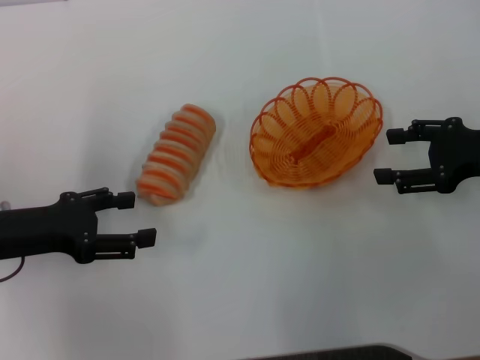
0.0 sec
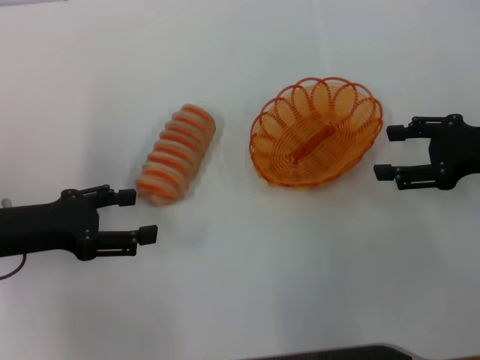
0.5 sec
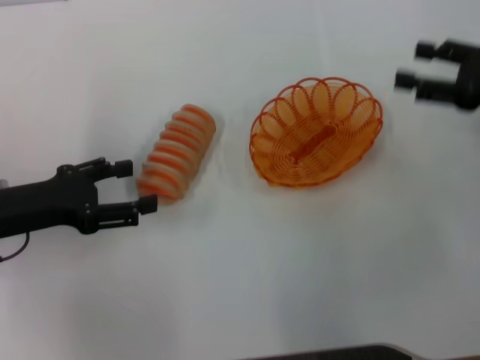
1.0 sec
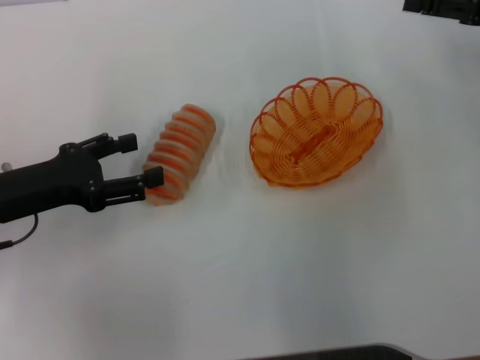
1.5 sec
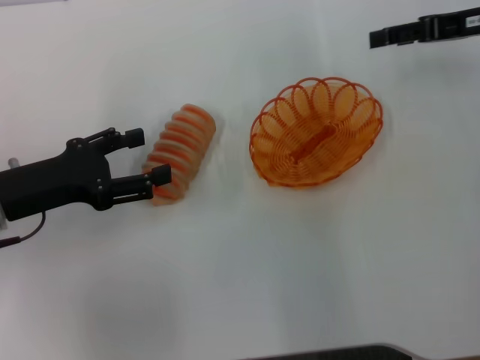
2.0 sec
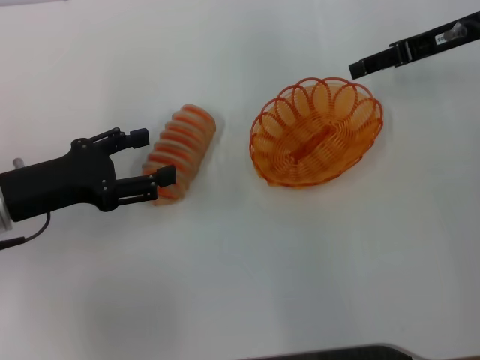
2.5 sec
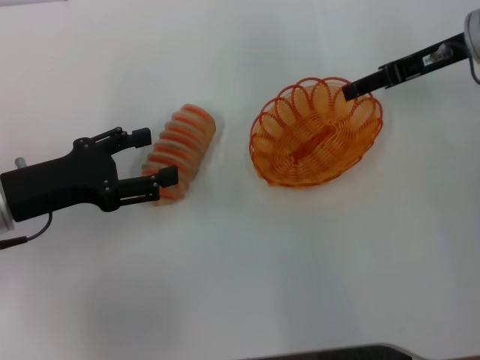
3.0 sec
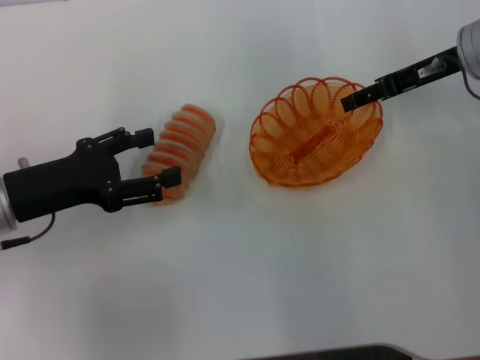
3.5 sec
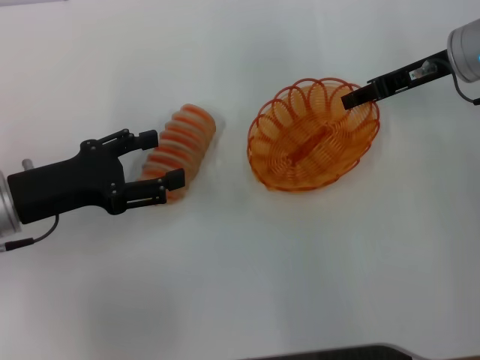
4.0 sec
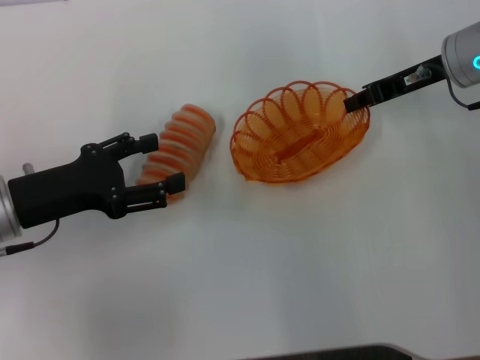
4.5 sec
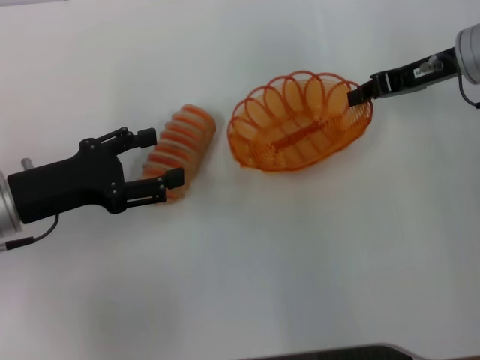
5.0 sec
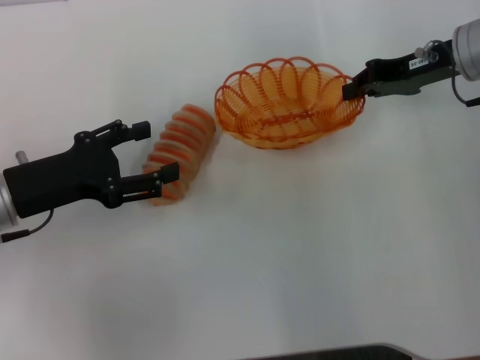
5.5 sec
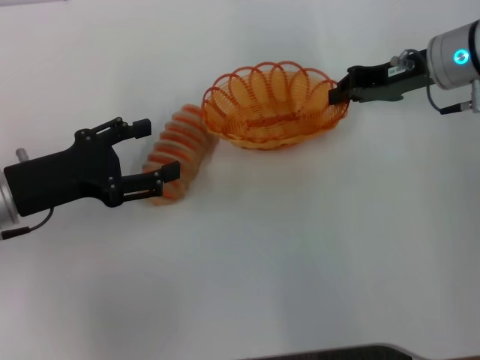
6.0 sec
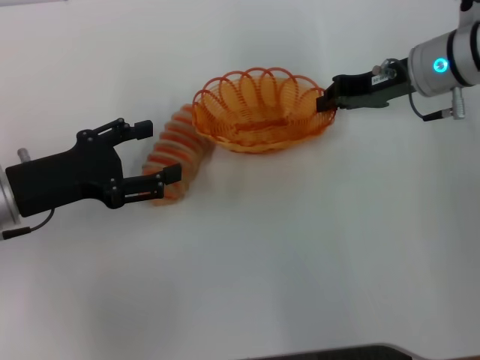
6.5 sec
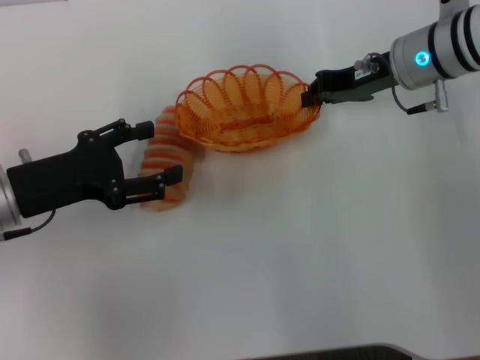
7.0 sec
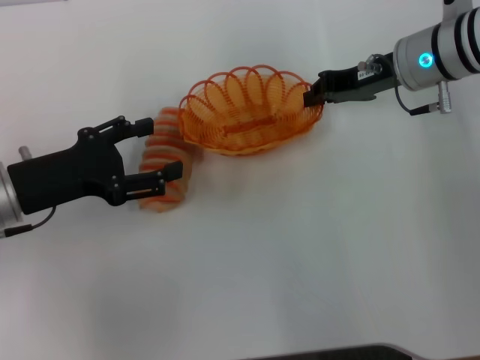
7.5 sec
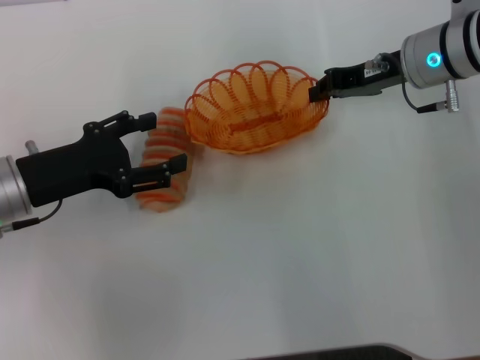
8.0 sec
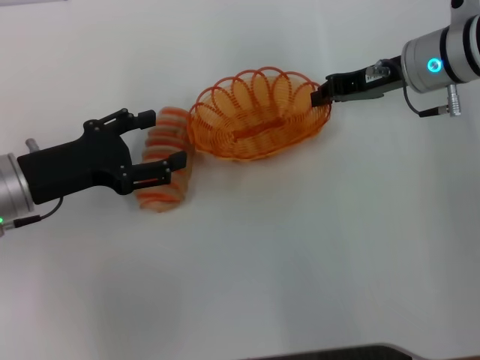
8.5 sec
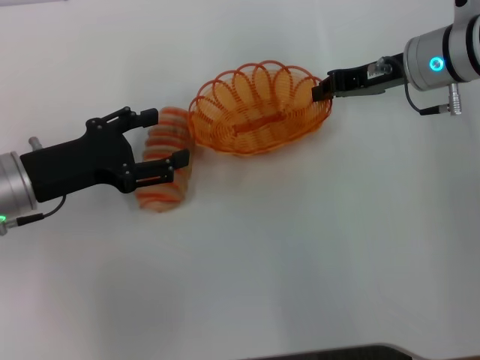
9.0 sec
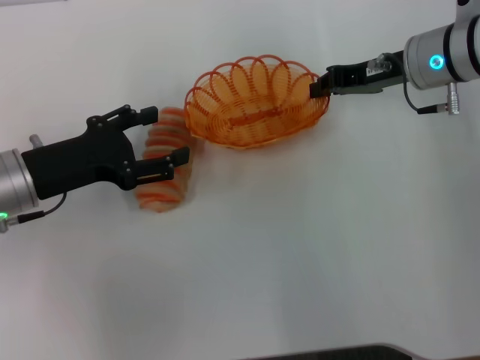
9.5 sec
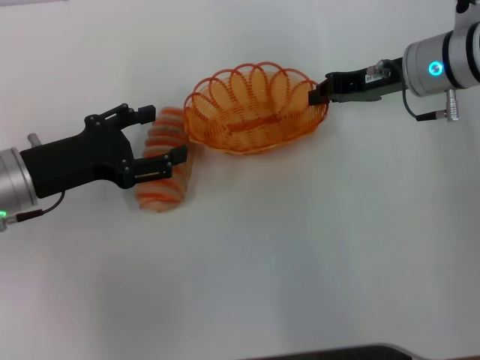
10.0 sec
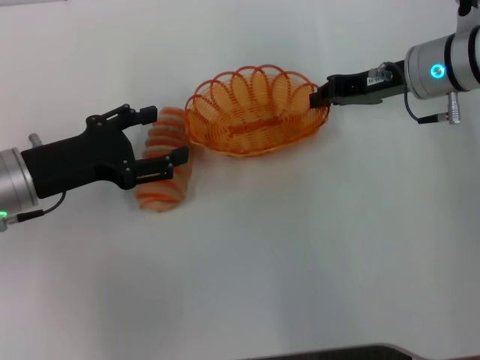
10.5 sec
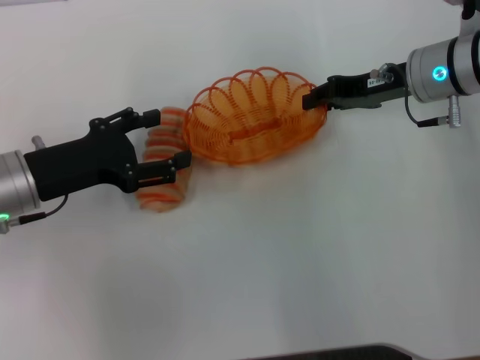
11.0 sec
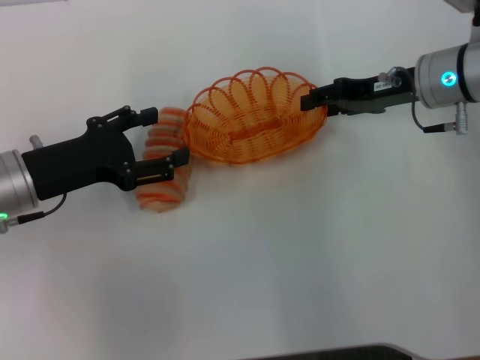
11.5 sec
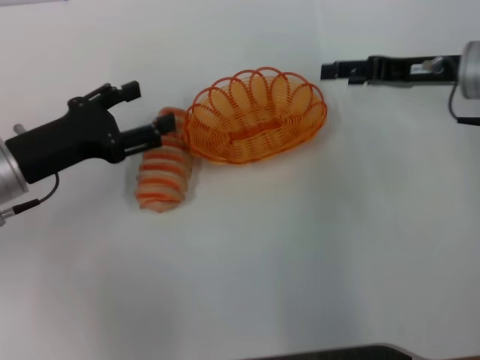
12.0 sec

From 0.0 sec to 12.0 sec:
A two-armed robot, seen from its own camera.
Step, from 0.0 sec to 5.0 sec: Pick up the basket with the right gripper.
From 0.0 sec to 2.0 sec: The right gripper is displaced forward and upward by about 15 cm.
From 2.0 sec to 4.0 sec: The right gripper heads to the left, covering approximately 5 cm.
From 4.0 sec to 6.0 sec: The right gripper closes.
From 6.0 sec to 8.0 sec: There are only small adjustments of the grippers.
From 8.0 sec to 10.0 sec: The two grippers keep their place.
From 10.0 sec to 12.0 sec: The right gripper moves roughly 5 cm, and opens up.

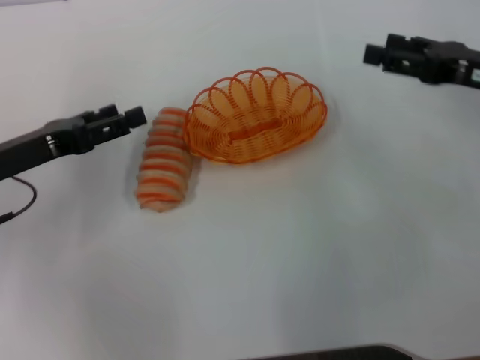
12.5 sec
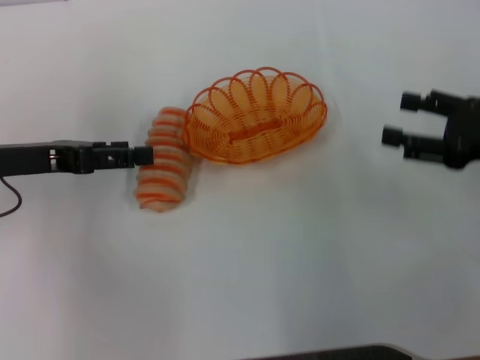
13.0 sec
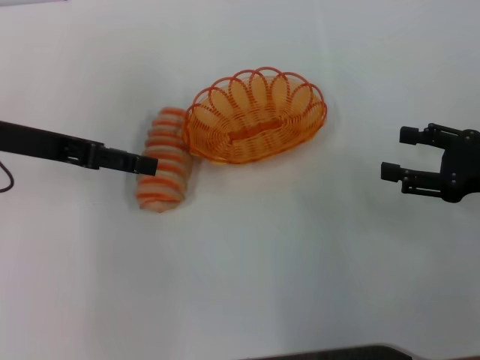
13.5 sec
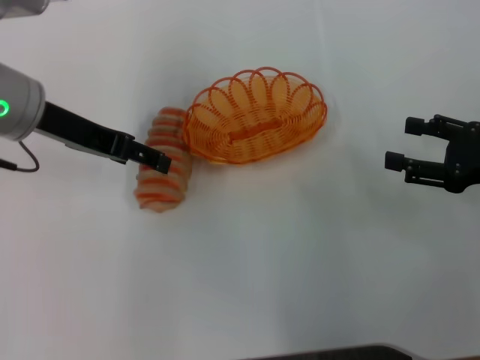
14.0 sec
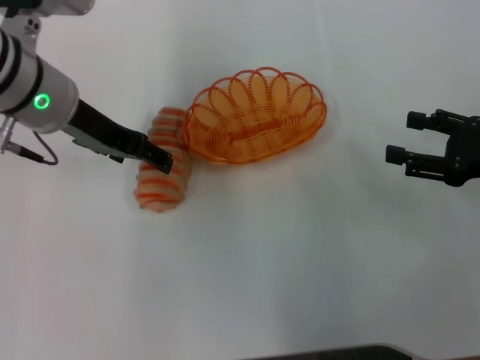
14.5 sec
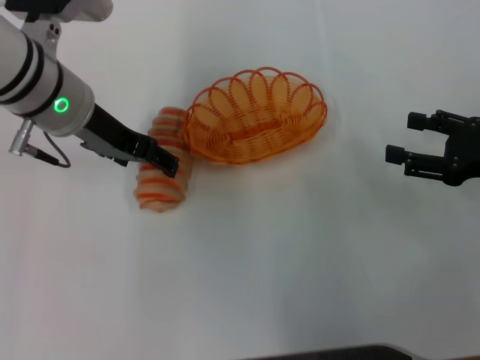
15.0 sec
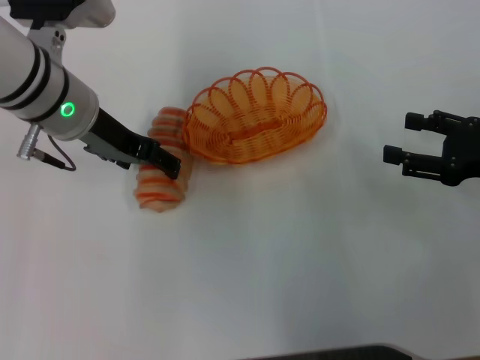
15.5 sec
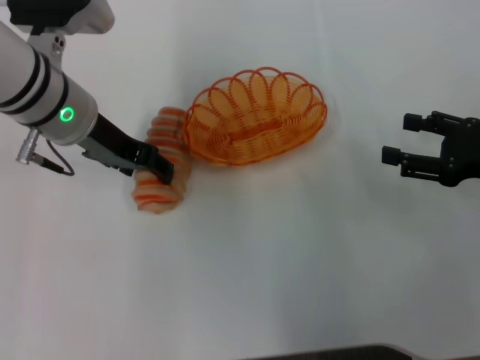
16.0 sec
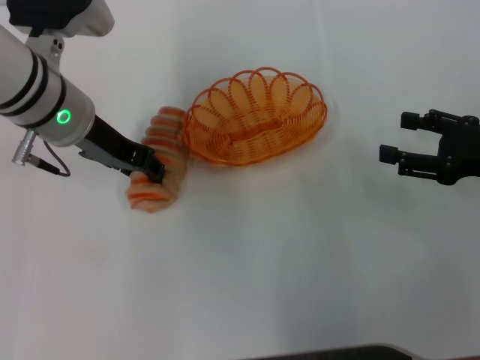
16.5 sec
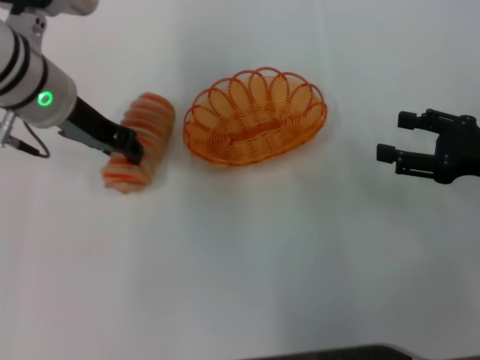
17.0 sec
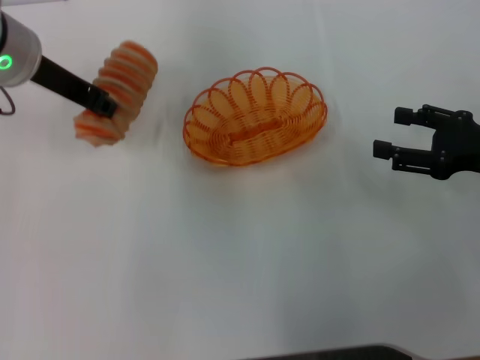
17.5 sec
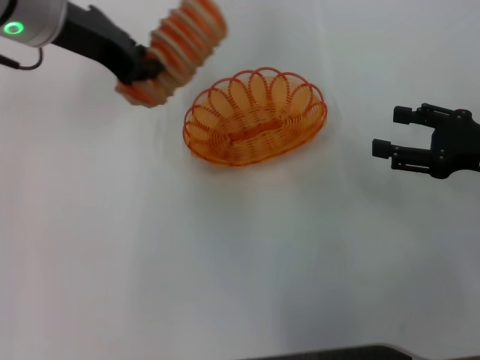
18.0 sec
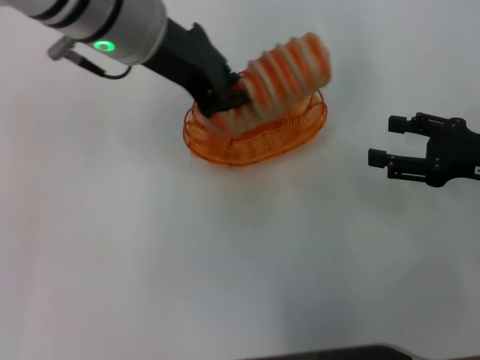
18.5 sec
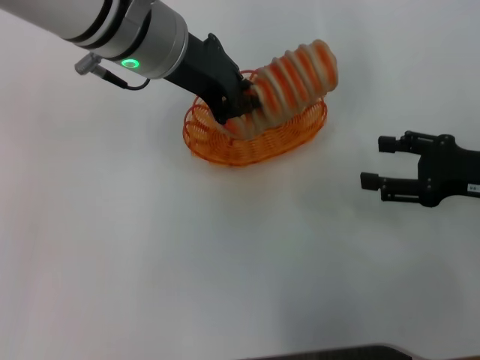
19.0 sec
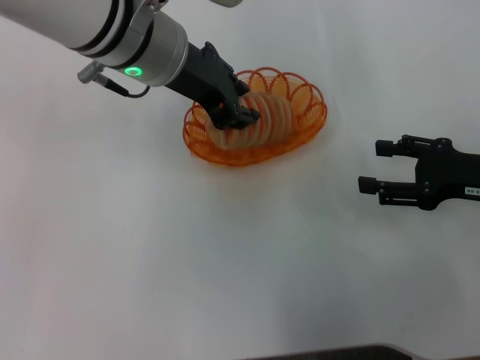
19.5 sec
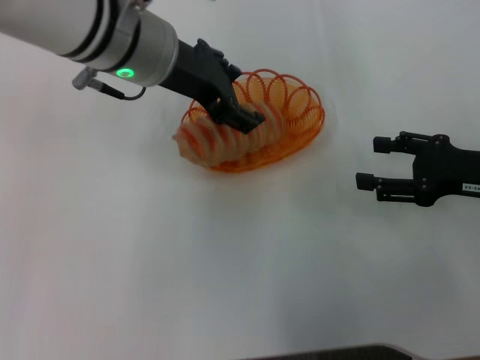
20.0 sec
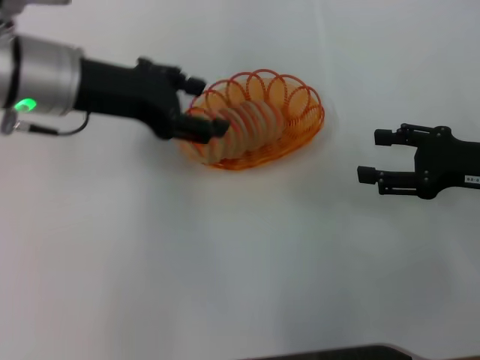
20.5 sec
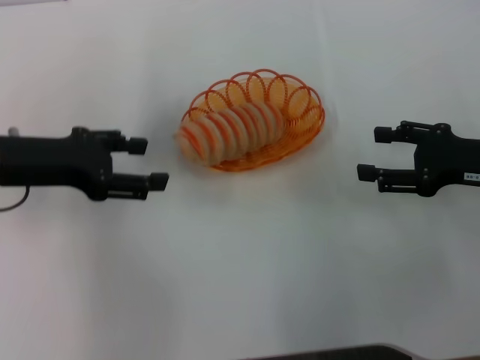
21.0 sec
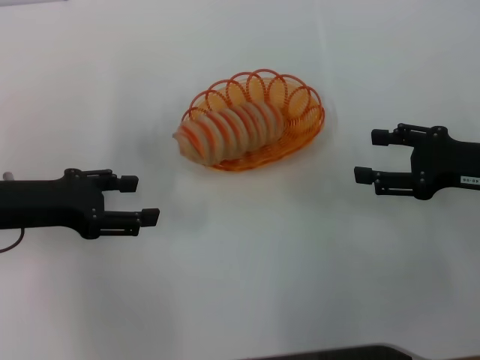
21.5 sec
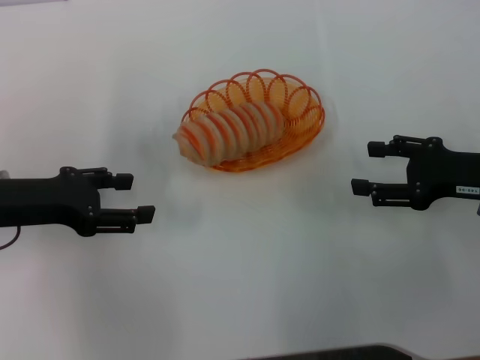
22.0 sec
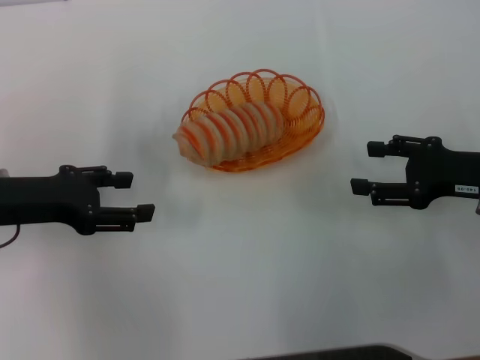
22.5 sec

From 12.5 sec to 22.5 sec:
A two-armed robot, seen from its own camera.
Step, from 12.5 sec to 17.0 sec: Pick up the long bread with the left gripper.
Step, from 17.5 sec to 20.0 sec: Place the long bread into the basket with the left gripper.
From 12.5 sec to 14.5 sec: The right gripper shifts roughly 5 cm backward; the left gripper heads to the right, upward and forward, covering about 15 cm.
From 14.5 sec to 16.5 sec: The left gripper closes its fingers.
From 16.5 sec to 18.5 sec: The left gripper shifts about 10 cm upward and to the right, and closes.
From 18.5 sec to 20.5 sec: The left gripper heads to the left and downward, covering approximately 10 cm, and opens.
From 20.5 sec to 22.5 sec: The left gripper shifts about 15 cm to the left, downward and backward.

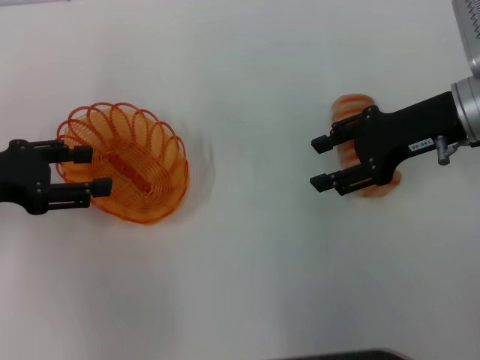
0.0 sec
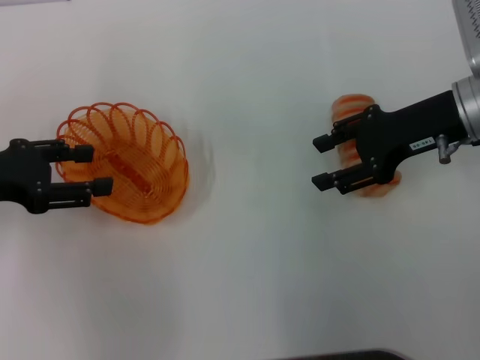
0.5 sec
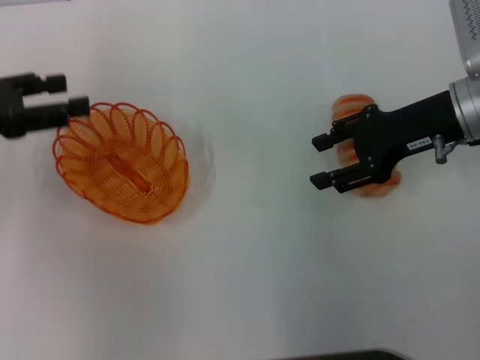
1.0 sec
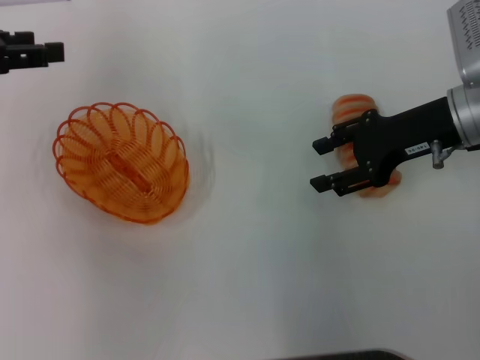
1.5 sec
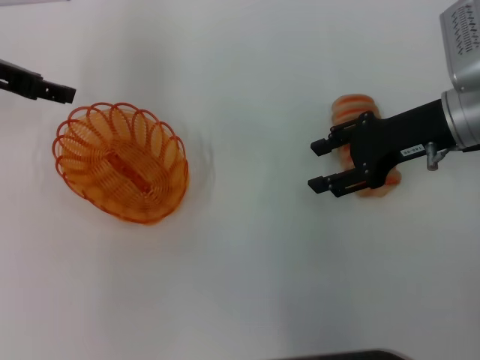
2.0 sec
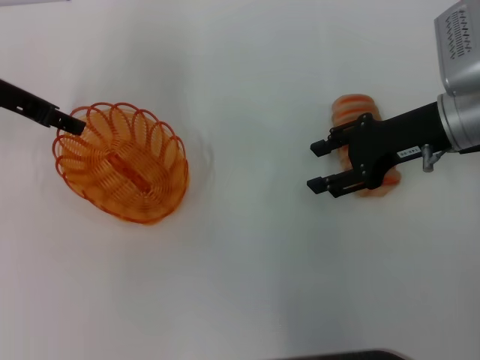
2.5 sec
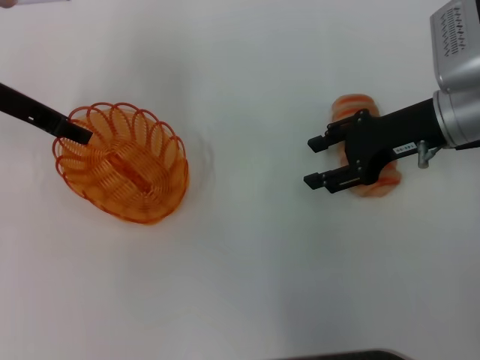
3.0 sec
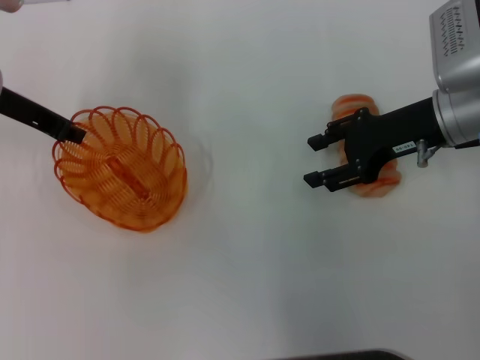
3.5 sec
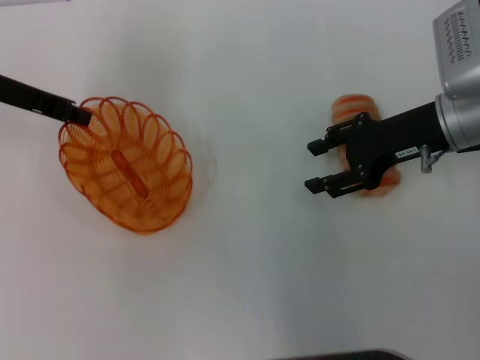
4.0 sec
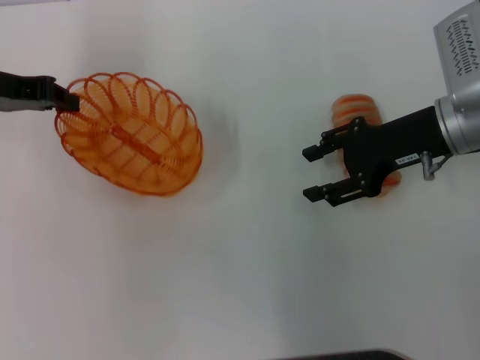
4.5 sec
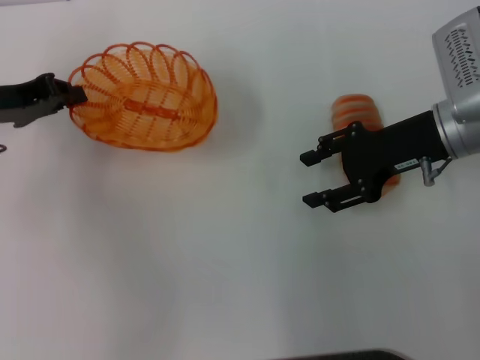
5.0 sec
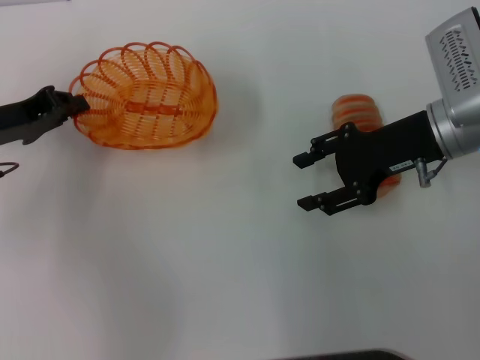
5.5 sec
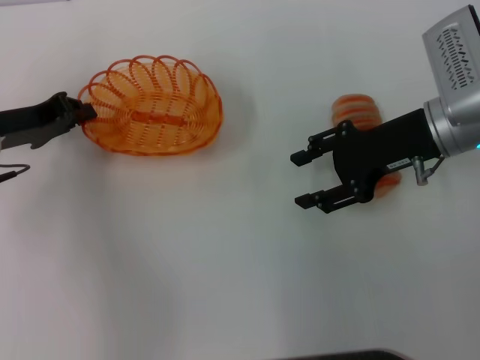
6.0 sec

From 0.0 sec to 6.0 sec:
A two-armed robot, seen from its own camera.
Step, from 0.0 sec to 4.0 sec: Pick up the basket with the left gripper.
From 0.0 sec to 2.0 sec: The left gripper travels forward and upward by about 10 cm.
From 2.0 sec to 4.0 sec: The left gripper closes its fingers.
From 4.0 sec to 6.0 sec: The left gripper is displaced downward and backward by approximately 10 cm.
